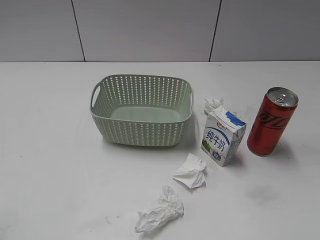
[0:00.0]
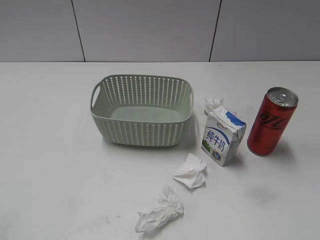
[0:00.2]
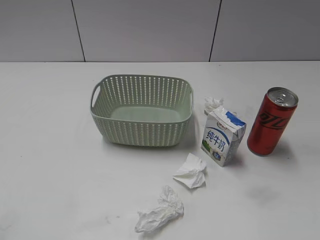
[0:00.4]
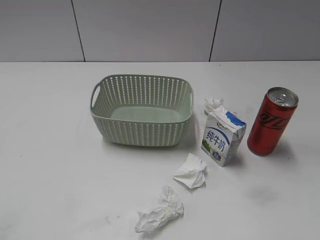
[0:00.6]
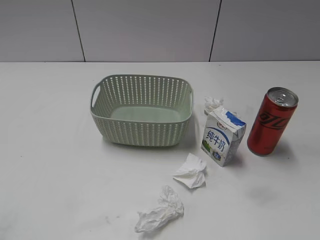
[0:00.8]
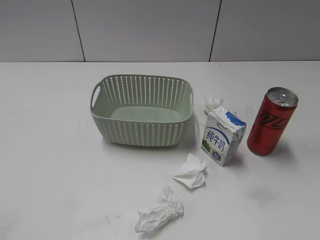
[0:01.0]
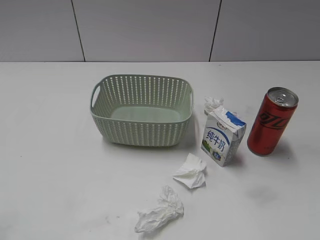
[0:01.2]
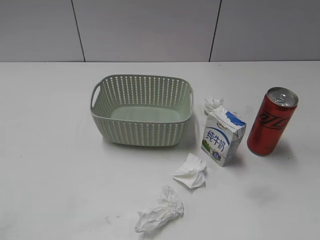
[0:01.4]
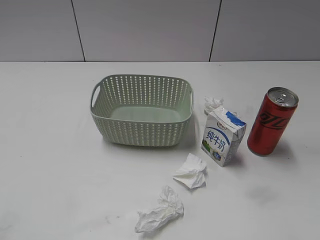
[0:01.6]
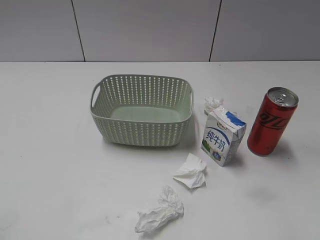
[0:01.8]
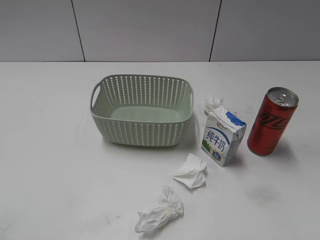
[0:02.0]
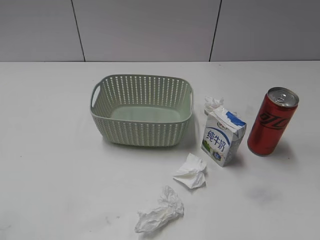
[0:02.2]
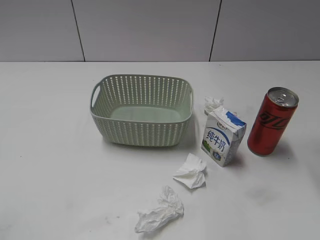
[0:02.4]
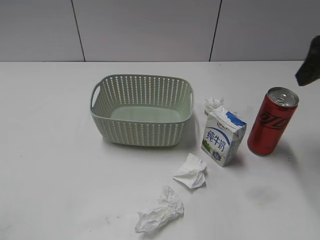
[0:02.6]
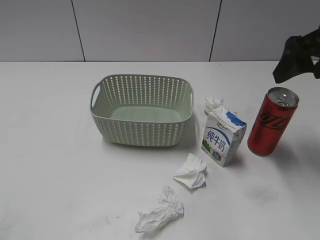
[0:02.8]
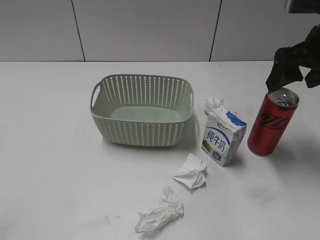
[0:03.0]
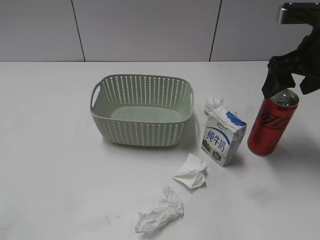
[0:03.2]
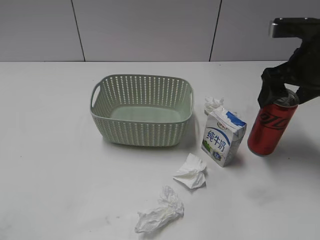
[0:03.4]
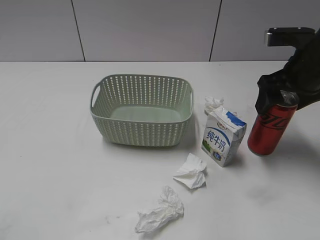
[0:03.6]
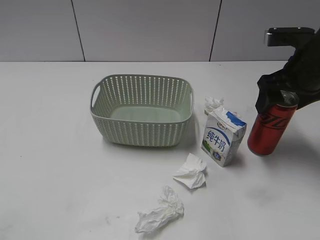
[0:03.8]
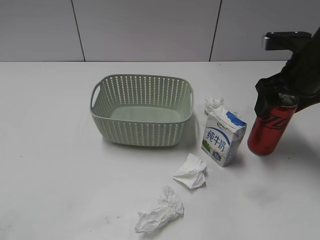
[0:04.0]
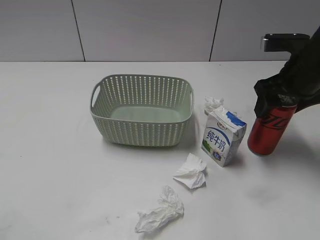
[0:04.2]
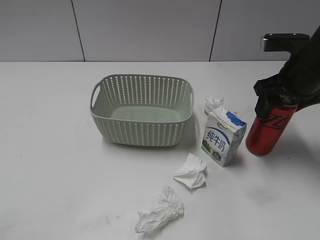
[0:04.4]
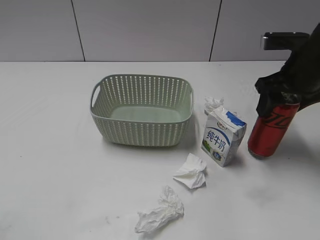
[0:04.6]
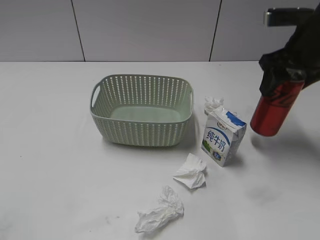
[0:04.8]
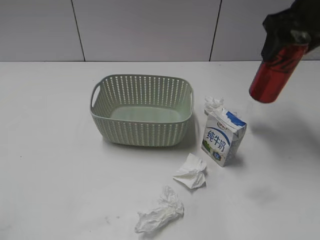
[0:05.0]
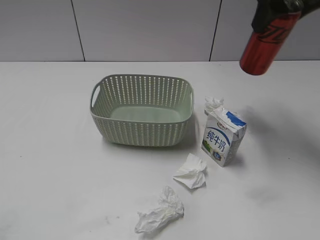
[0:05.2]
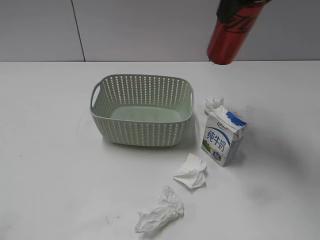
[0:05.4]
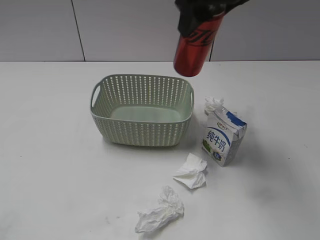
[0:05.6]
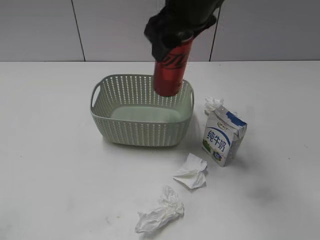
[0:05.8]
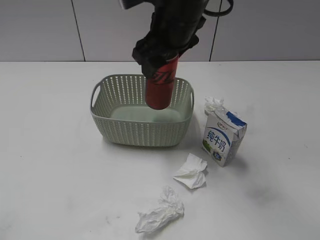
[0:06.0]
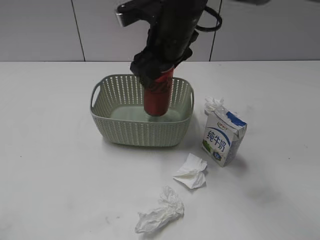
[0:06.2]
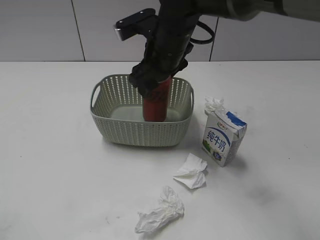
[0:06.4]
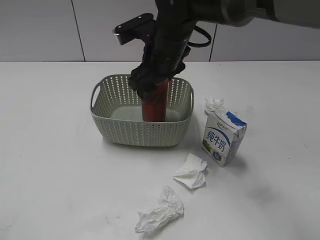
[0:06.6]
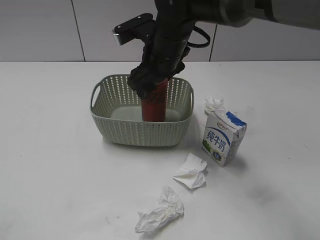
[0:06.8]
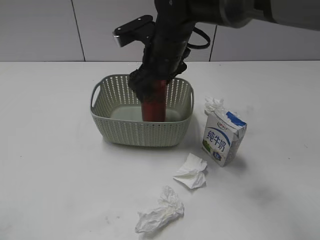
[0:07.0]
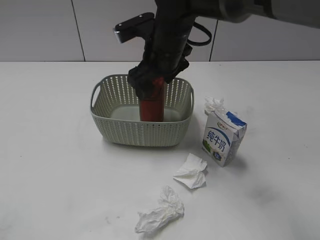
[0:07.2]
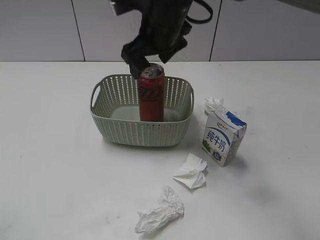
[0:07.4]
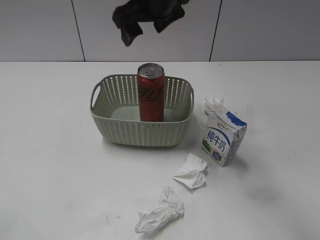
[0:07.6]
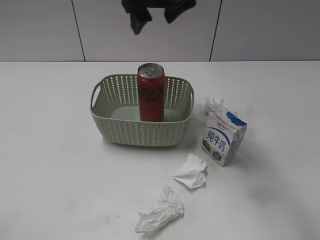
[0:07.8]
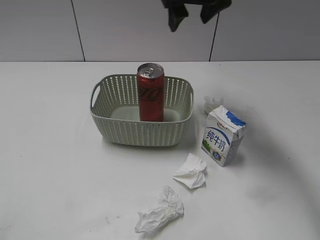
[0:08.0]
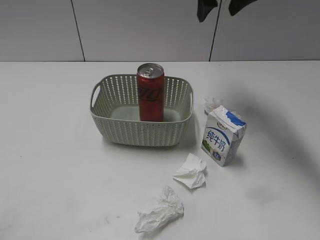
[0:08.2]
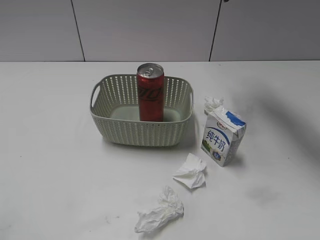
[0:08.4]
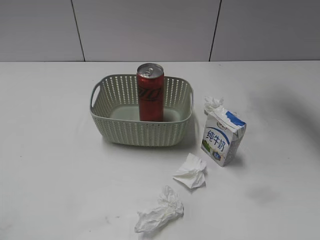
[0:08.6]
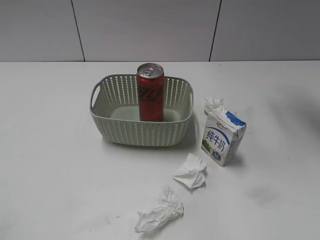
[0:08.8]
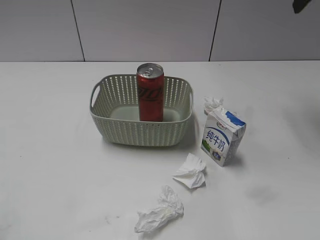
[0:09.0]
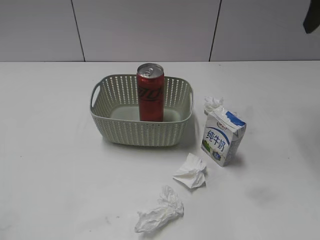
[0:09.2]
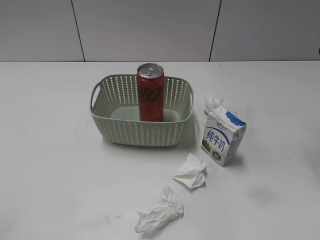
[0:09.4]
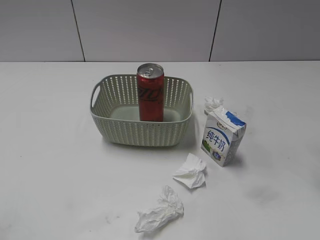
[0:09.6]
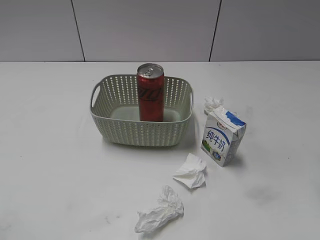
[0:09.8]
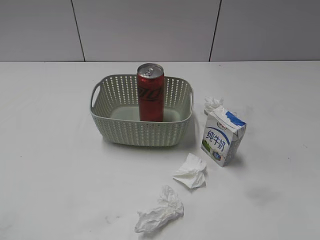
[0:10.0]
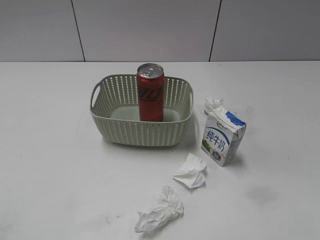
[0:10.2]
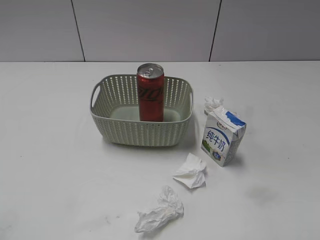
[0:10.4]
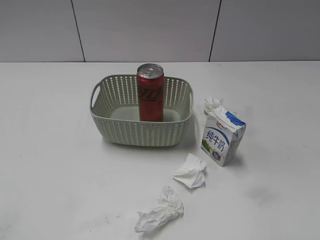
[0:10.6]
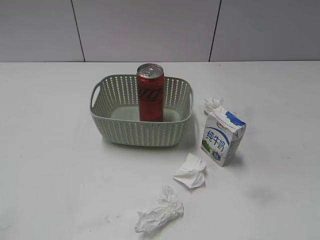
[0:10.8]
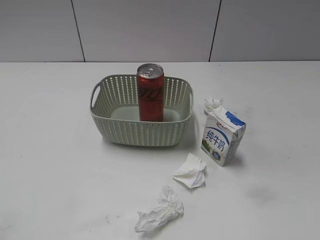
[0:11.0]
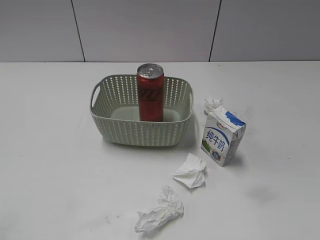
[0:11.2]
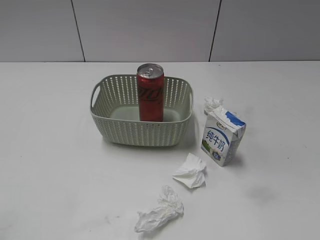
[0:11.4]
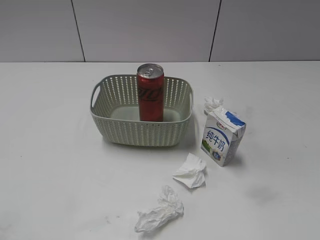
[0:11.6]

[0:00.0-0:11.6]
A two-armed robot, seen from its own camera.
Step, 0:02.6 to 0:04.4: Grasp the cola can with right gripper.
Step, 0:04.6 to 0:07.4: Place the cola can in the basket with right gripper.
0:01.4 to 0:02.8: The right gripper heads forward, covering about 25 cm, and opens.
0:02.8 to 0:04.4: The right gripper heads downward, covering roughly 10 cm, and closes.
0:04.4 to 0:05.8: The right gripper shifts about 20 cm to the left and upward.
0:05.8 to 0:07.2: The right gripper travels downward by about 10 cm, and opens.
0:07.2 to 0:08.8: The right gripper travels to the right and upward by about 30 cm, and closes its fingers.
0:08.8 to 0:10.2: The right gripper shifts about 30 cm backward and downward.

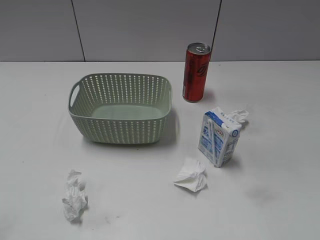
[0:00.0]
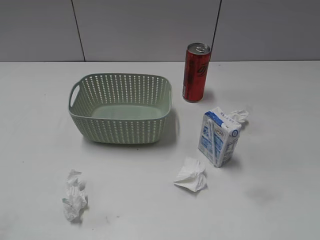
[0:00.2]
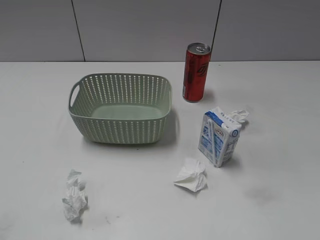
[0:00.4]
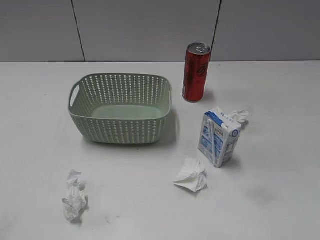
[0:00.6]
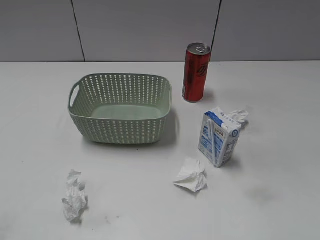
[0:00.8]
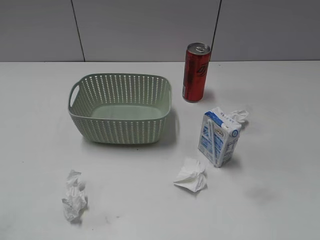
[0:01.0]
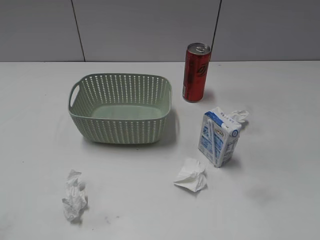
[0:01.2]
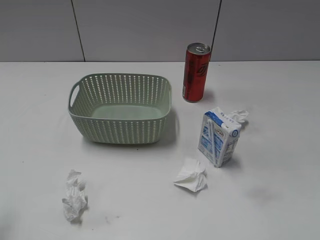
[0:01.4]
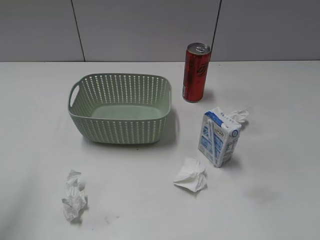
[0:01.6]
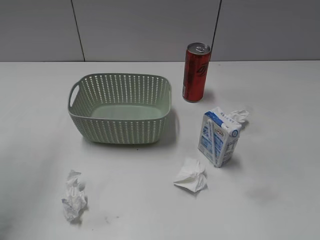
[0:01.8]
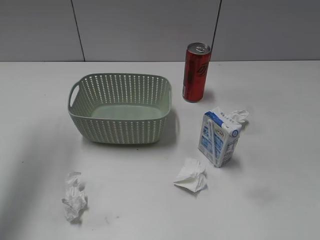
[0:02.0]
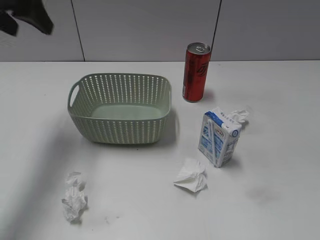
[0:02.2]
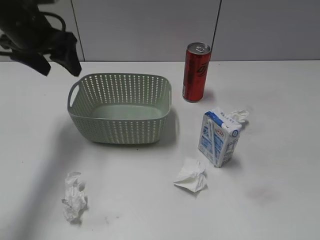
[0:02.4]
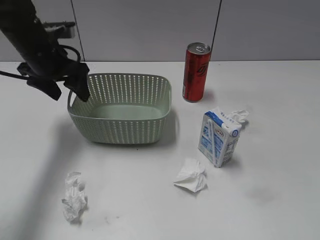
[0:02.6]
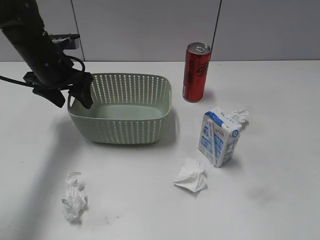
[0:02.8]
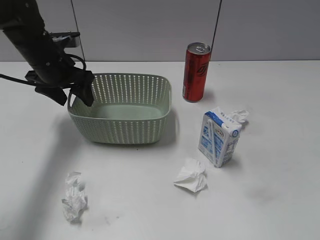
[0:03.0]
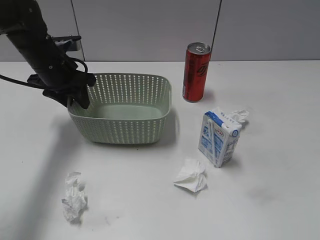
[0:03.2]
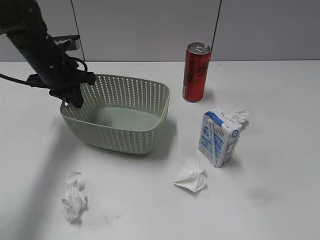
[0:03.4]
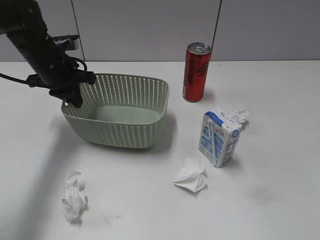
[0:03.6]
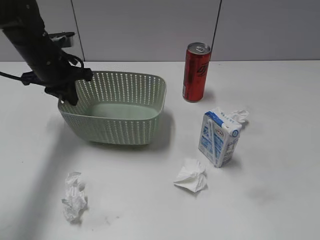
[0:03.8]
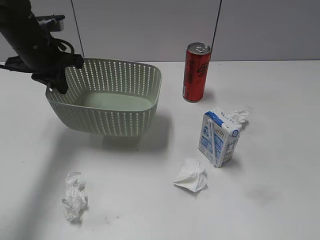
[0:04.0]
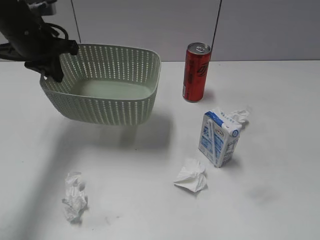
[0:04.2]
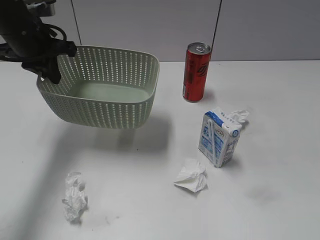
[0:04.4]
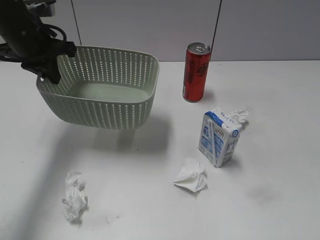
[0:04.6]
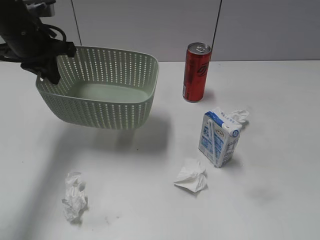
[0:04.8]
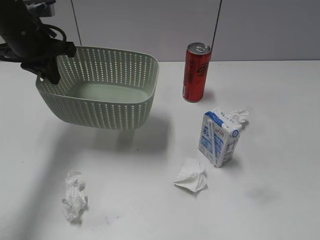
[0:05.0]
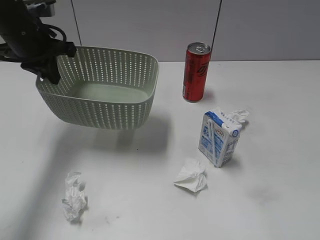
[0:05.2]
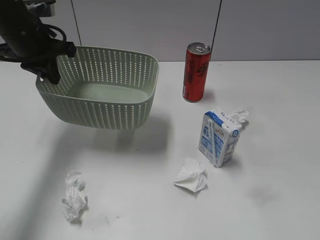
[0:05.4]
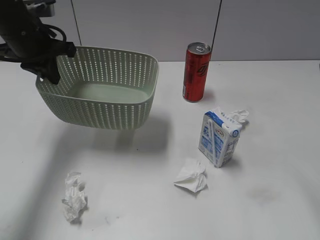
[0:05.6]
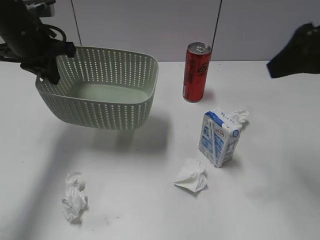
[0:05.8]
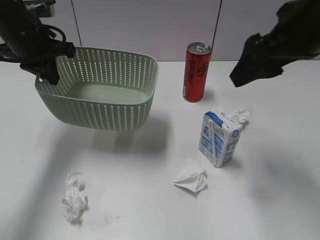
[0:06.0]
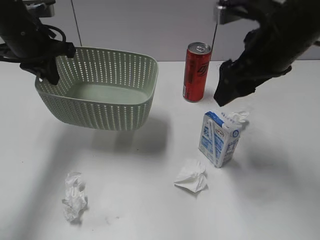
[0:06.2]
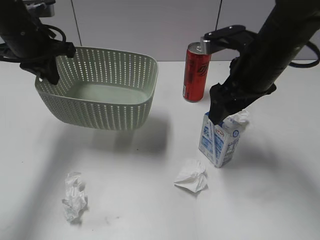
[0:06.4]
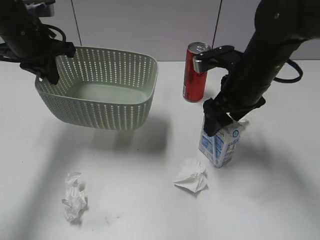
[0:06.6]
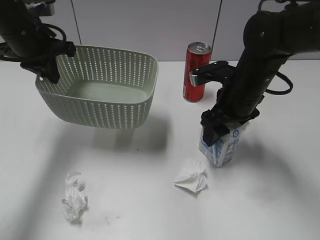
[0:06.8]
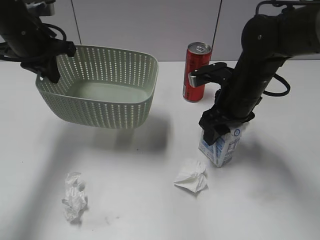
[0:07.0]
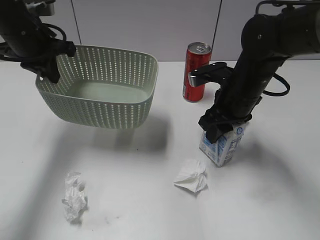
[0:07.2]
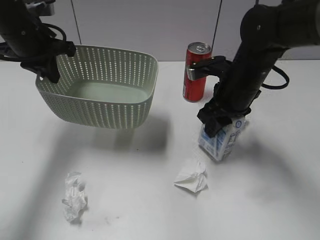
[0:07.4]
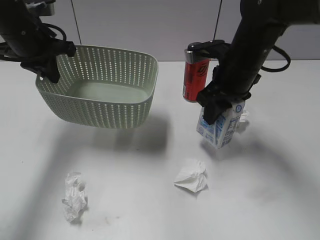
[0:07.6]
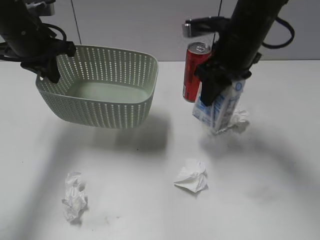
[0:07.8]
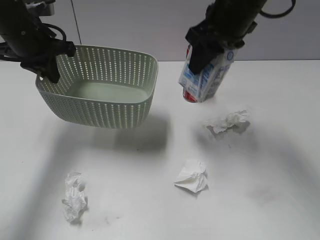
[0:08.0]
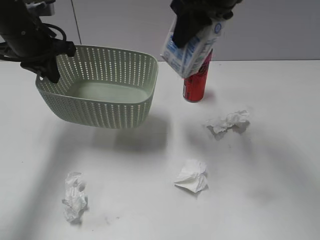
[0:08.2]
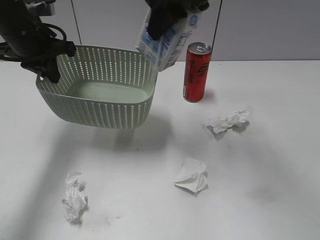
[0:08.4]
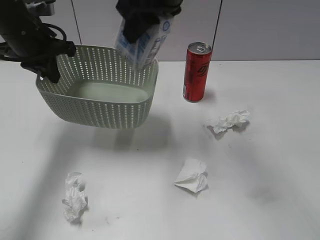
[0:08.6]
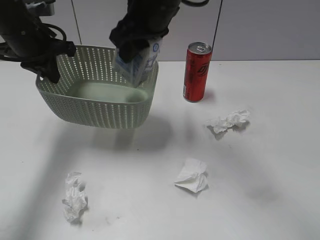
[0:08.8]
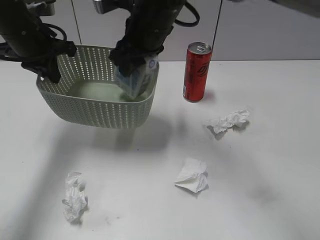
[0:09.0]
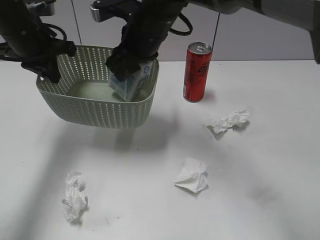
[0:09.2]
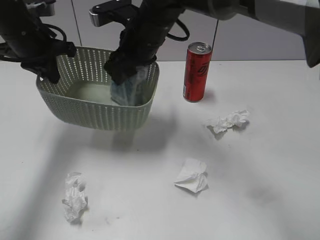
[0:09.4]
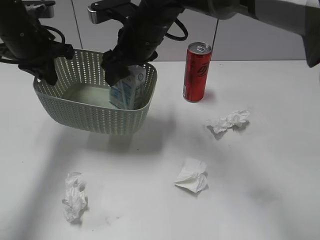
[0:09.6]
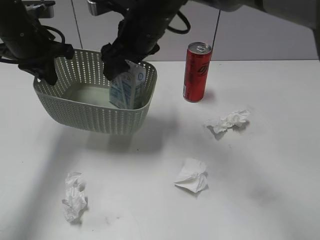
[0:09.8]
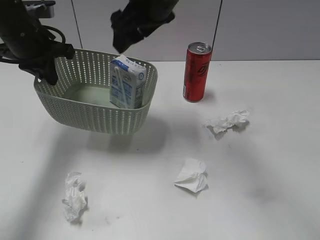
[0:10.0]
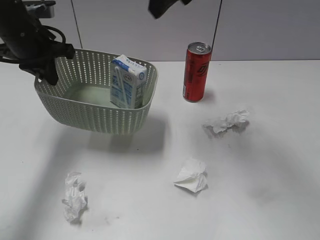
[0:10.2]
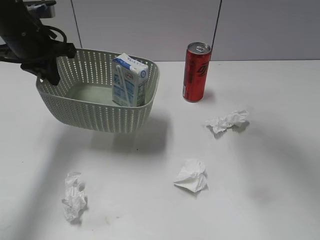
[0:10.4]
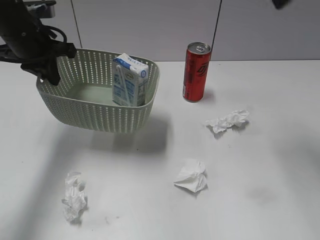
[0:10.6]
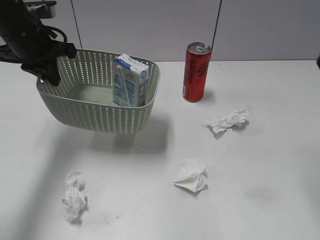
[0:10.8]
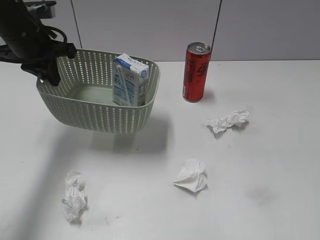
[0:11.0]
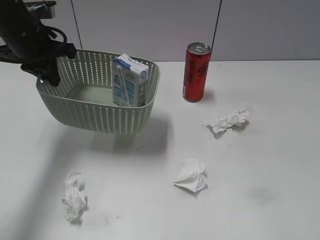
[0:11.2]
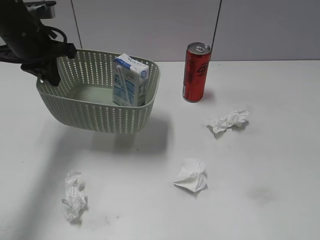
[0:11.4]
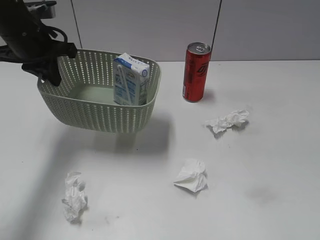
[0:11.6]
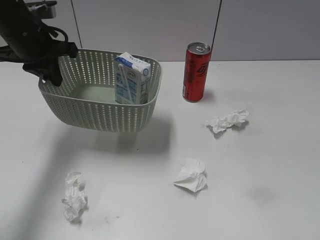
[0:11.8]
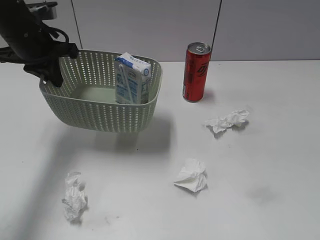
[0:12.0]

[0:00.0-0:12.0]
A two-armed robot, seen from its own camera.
Step, 0:02.2 to 0:03.4: Grasp the basket with left gripper.
Step, 0:03.6 to 0:04.4: Lift the basket with left gripper.
Step, 0:04.6 to 0:07.2: Grasp the milk with right gripper.
Step, 0:07.4 to 0:10.0: Place the milk in the basket with right gripper.
0:01.6 to 0:03.0: The left gripper shifts about 35 cm forward, downward and to the right.
0:03.0 to 0:04.4: The left gripper shifts approximately 5 cm upward, and closes up.
0:04.4 to 0:06.0: The right gripper is displaced forward and to the left by some 30 cm.
0:06.0 to 0:07.6: The right gripper goes about 15 cm downward, forward and to the left, and closes.
0:07.6 to 0:09.0: The right gripper shifts approximately 15 cm to the left and upward.
0:09.0 to 0:10.4: The right gripper heads upward and to the right, covering some 20 cm, and opens.
0:10.4 to 0:12.0: The right gripper moves backward, to the right and downward, some 35 cm.
